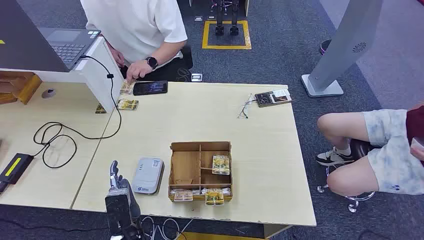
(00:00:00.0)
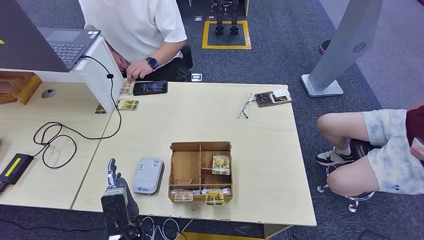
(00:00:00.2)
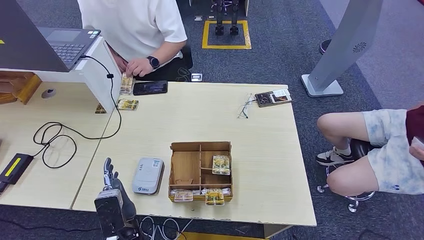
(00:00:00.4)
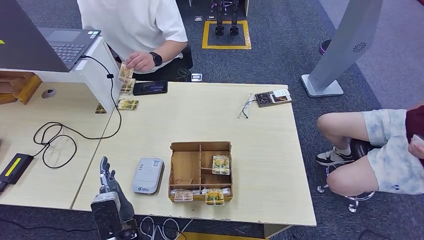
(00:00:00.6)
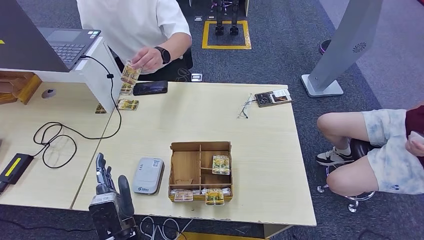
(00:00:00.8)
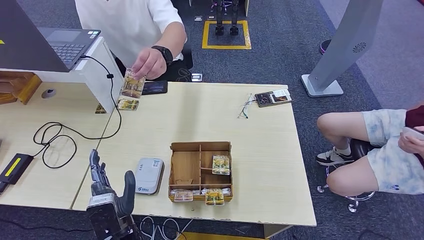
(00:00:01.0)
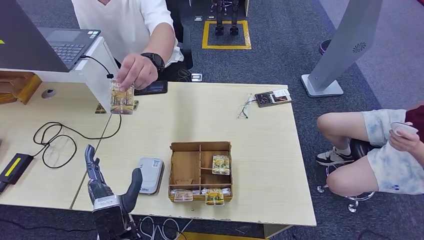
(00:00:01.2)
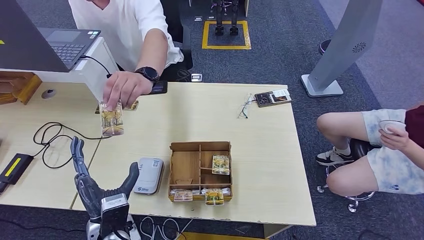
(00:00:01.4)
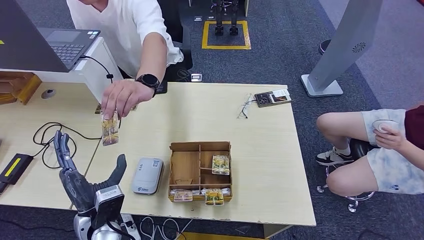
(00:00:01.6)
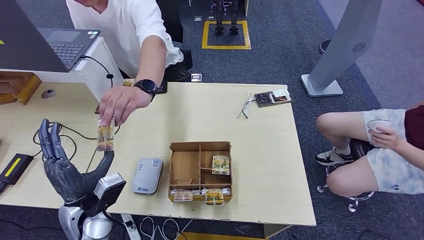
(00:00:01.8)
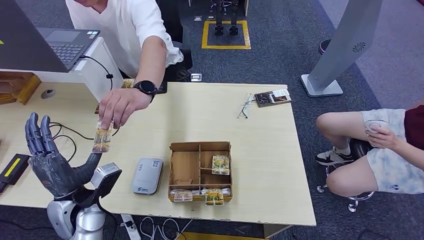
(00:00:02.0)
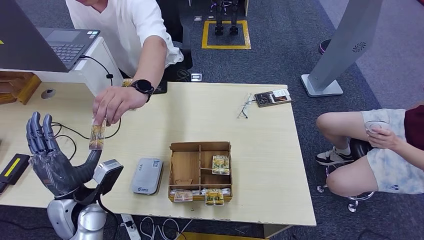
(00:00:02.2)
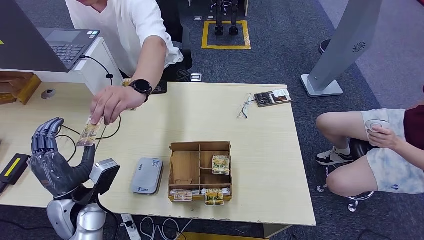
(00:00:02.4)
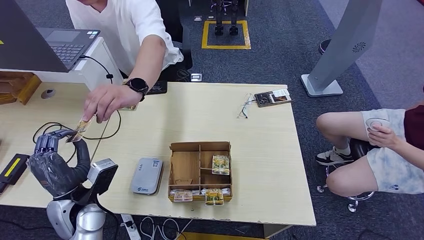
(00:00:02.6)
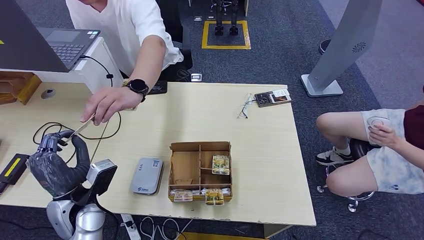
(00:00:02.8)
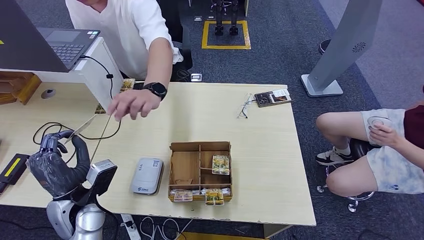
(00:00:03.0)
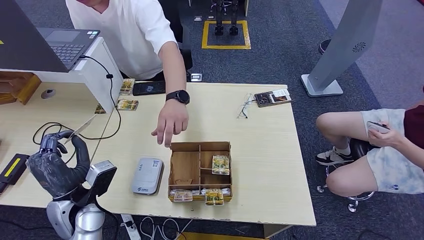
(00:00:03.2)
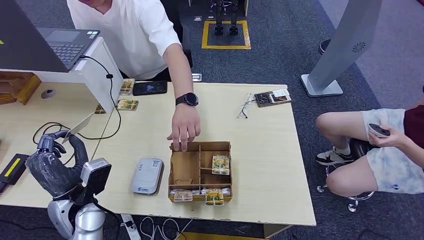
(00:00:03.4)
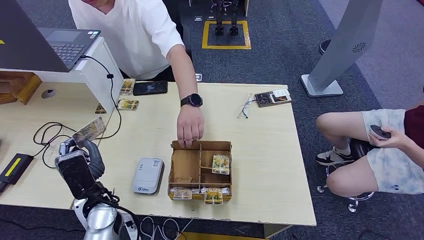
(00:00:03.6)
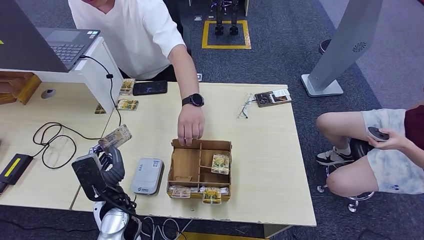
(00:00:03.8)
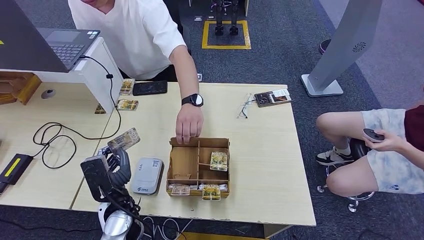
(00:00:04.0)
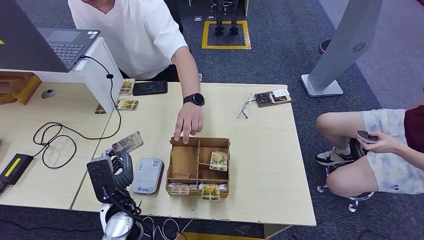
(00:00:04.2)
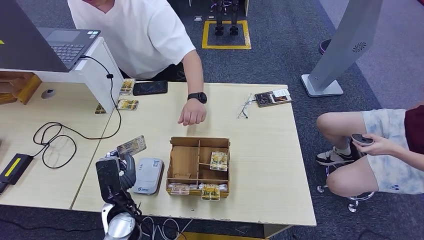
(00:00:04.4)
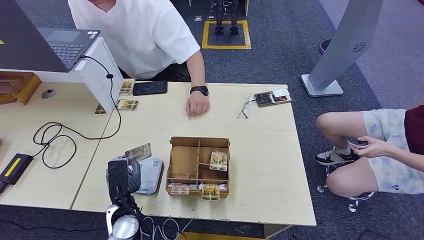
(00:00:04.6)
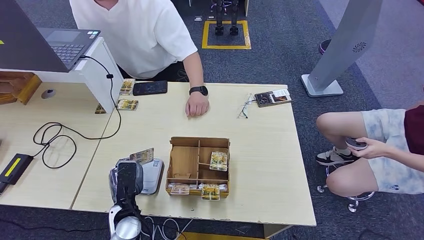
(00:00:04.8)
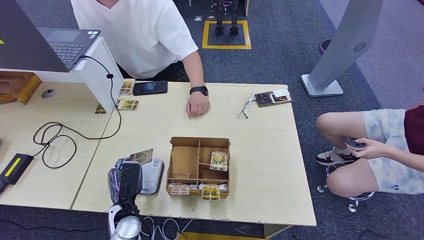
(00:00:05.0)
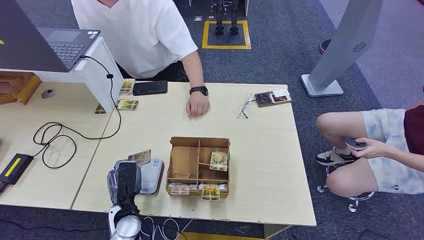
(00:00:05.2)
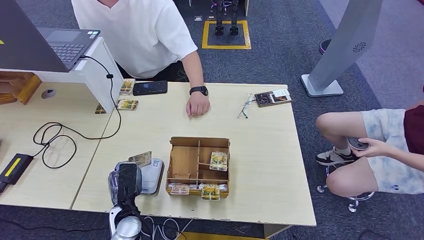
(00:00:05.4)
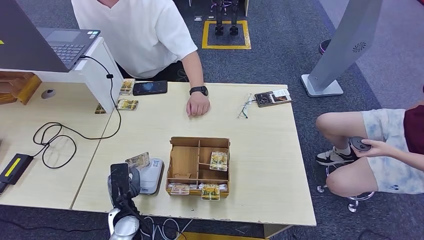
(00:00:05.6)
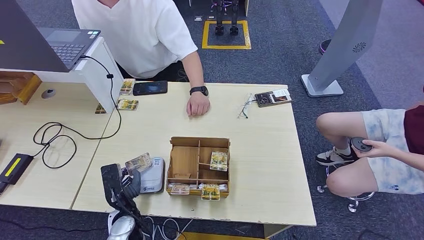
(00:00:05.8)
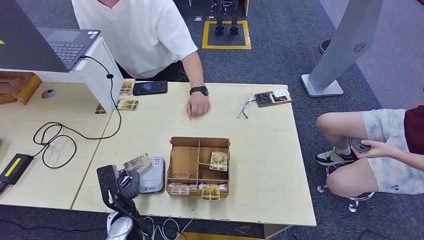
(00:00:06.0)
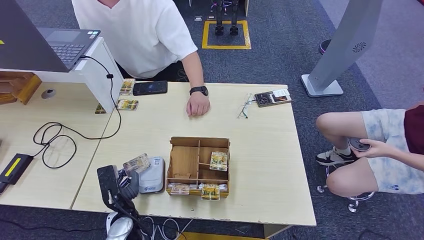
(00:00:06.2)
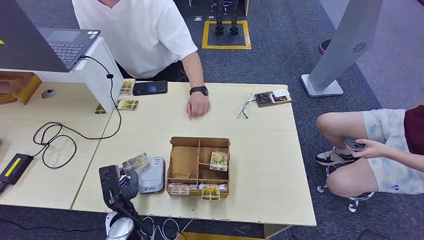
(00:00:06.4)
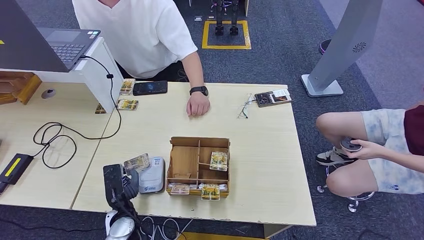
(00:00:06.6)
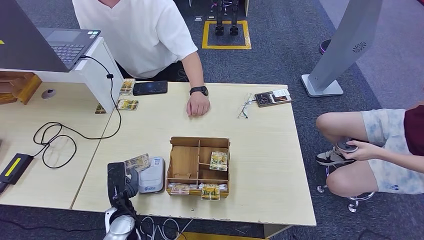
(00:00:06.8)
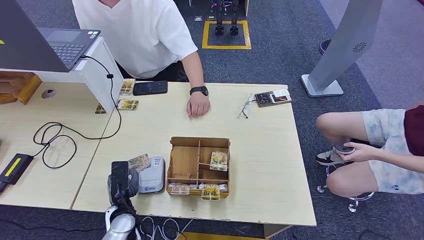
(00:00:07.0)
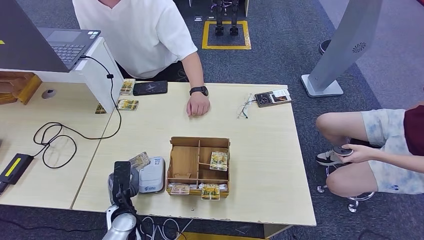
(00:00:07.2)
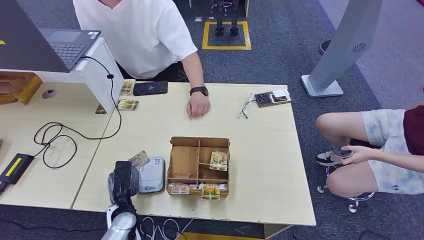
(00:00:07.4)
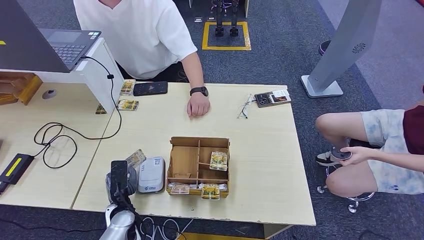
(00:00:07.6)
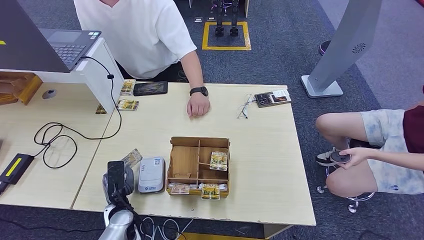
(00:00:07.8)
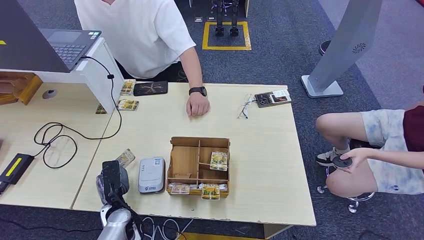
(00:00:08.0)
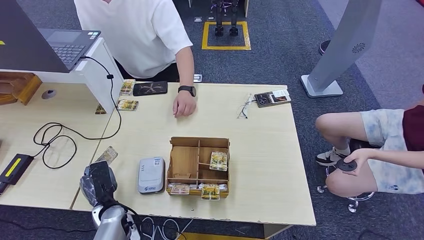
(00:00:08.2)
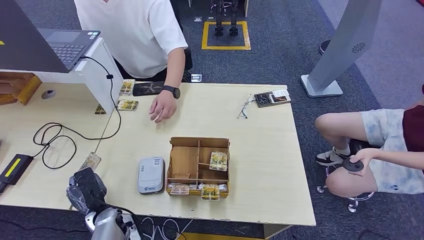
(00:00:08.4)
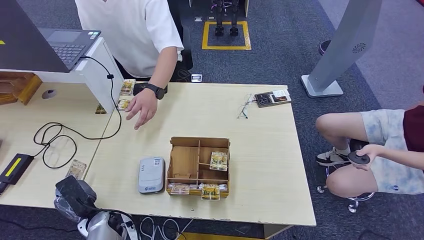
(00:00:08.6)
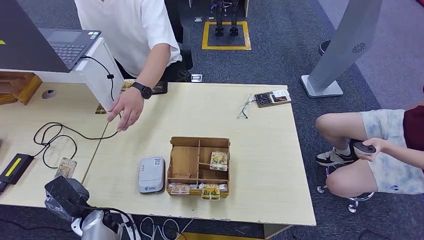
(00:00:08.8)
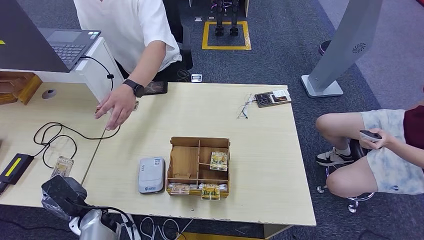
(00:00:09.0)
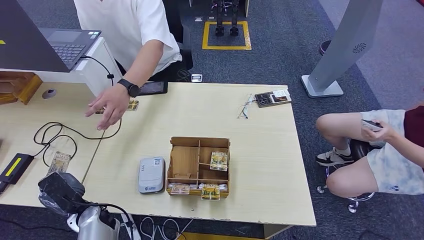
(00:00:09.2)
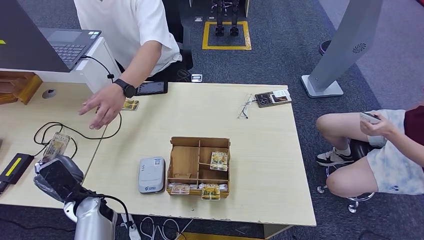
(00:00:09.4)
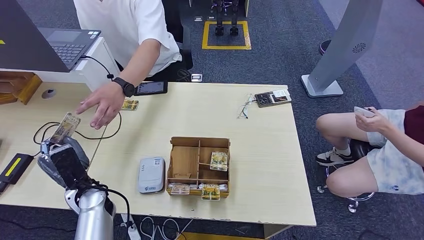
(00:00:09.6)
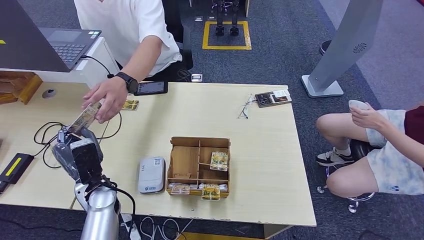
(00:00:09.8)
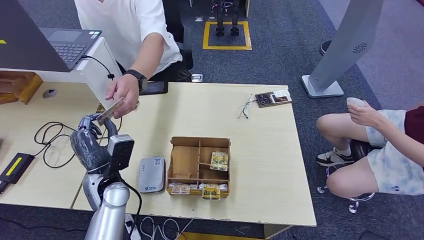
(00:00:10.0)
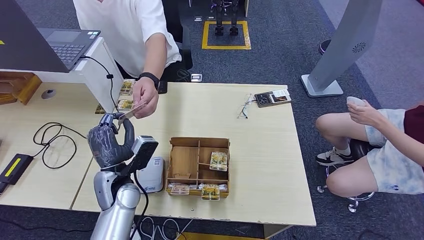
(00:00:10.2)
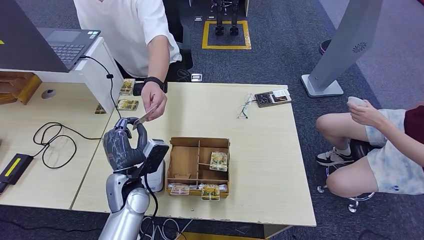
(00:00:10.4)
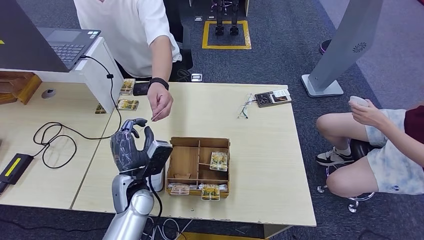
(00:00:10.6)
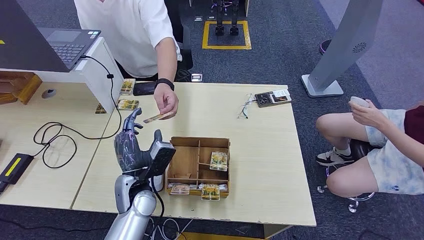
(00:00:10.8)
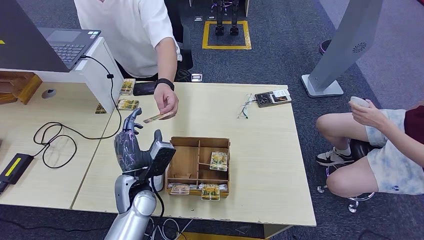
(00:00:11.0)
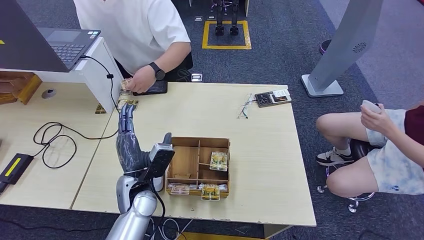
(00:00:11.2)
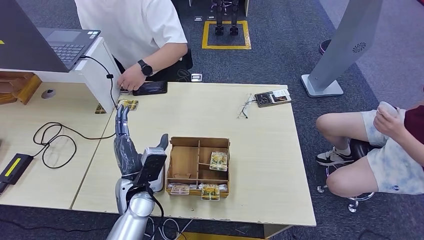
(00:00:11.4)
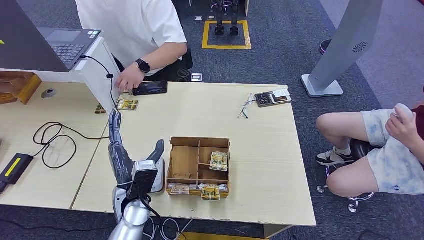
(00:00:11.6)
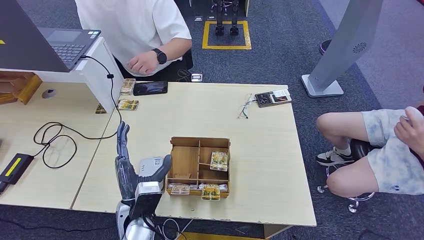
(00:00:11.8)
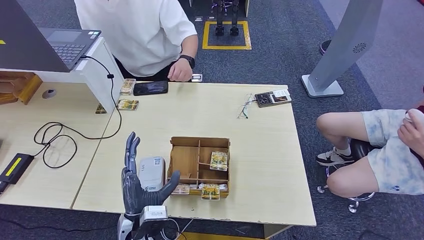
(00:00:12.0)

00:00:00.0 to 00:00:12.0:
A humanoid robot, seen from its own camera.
Step, 00:00:00.0 to 00:00:03.2: Take the ID card from the person's hand.
Step, 00:00:03.4 to 00:00:06.4: Place the ID card on the card reader.
Step, 00:00:06.6 to 00:00:10.0: Hand the ID card to the person.
00:00:01.6 to 00:00:03.0: The left hand shifts approximately 5 cm to the left.
00:00:03.0 to 00:00:04.4: The left hand shifts approximately 10 cm to the right and downward.
00:00:04.4 to 00:00:06.0: The left hand travels downward by about 5 cm.
00:00:07.6 to 00:00:09.0: The left hand is displaced to the left by roughly 5 cm.
00:00:09.0 to 00:00:10.4: The left hand heads upward, to the right and forward, covering some 15 cm.
00:00:10.4 to 00:00:12.0: The left hand is displaced backward by roughly 10 cm.

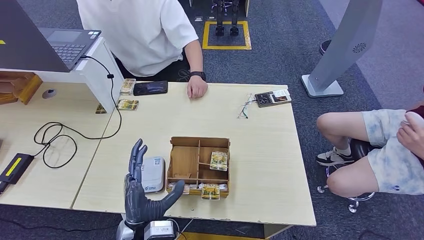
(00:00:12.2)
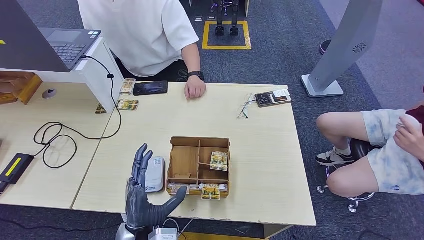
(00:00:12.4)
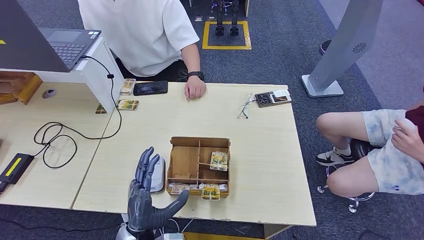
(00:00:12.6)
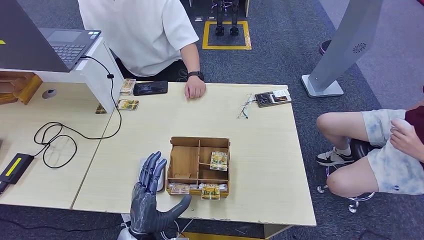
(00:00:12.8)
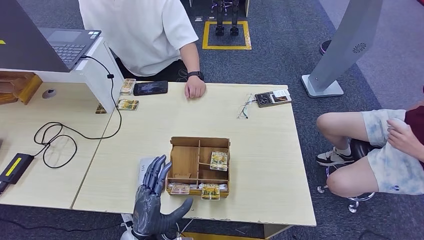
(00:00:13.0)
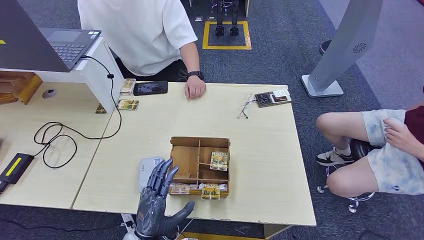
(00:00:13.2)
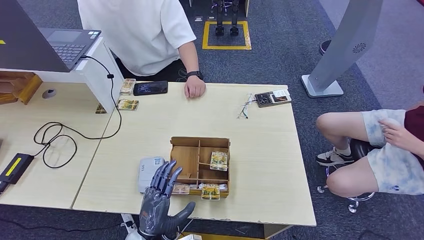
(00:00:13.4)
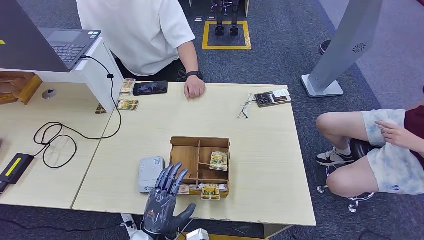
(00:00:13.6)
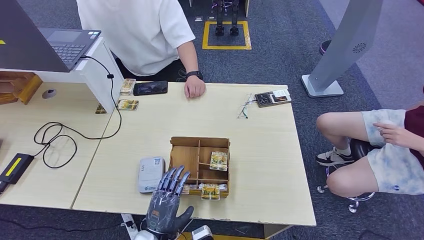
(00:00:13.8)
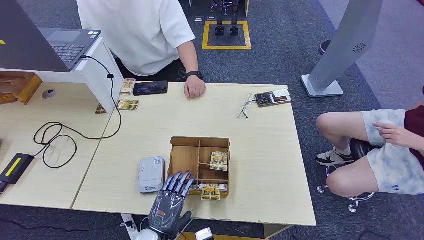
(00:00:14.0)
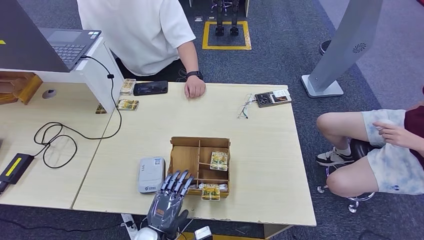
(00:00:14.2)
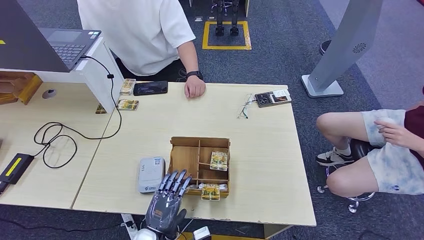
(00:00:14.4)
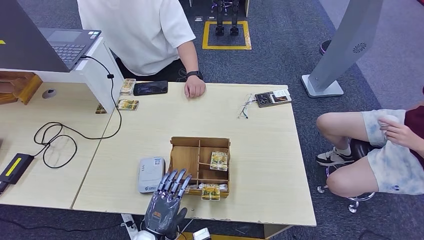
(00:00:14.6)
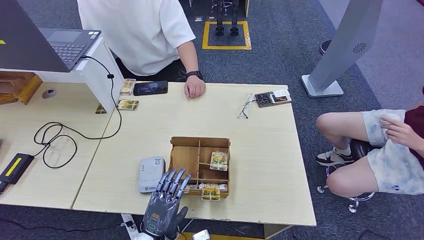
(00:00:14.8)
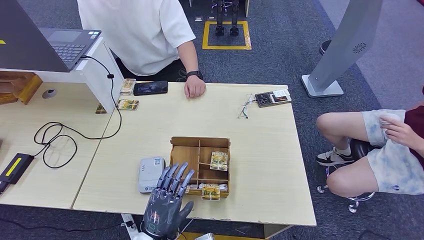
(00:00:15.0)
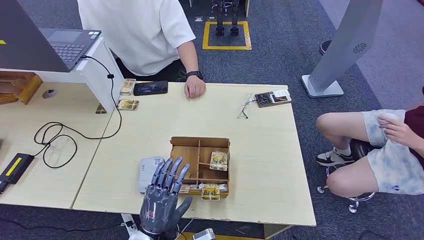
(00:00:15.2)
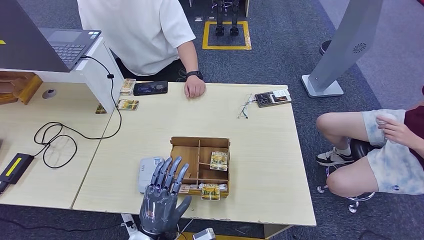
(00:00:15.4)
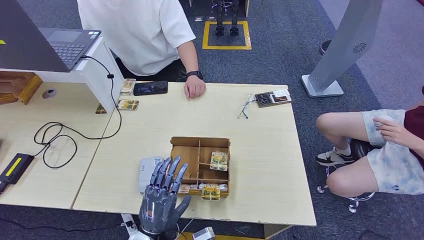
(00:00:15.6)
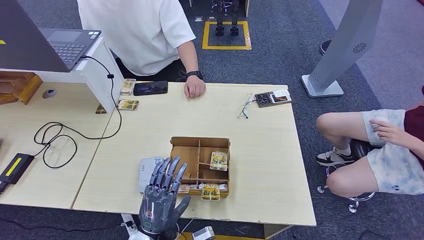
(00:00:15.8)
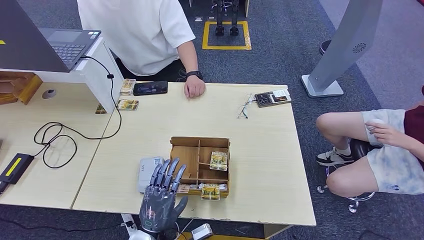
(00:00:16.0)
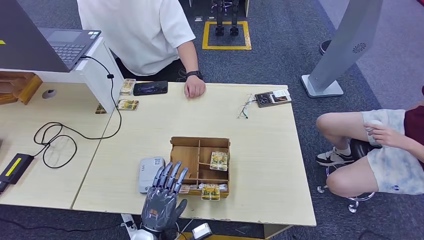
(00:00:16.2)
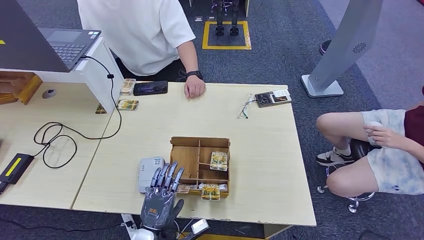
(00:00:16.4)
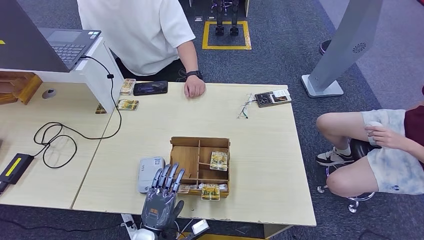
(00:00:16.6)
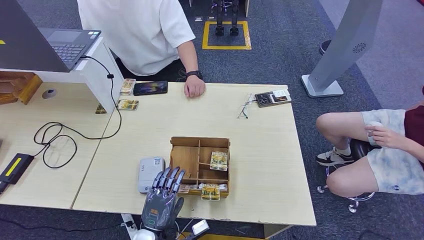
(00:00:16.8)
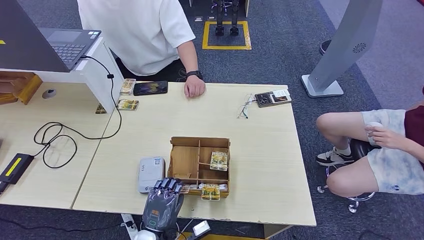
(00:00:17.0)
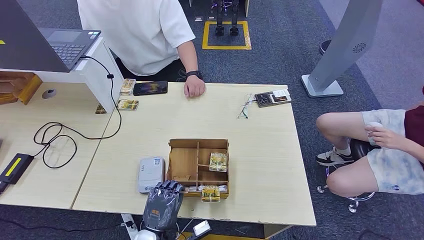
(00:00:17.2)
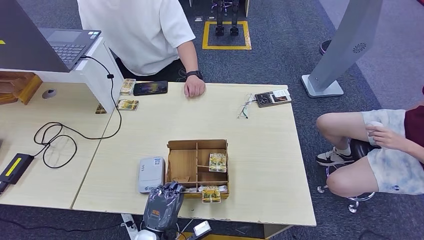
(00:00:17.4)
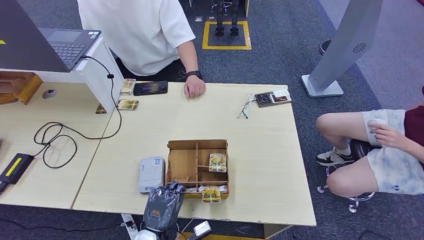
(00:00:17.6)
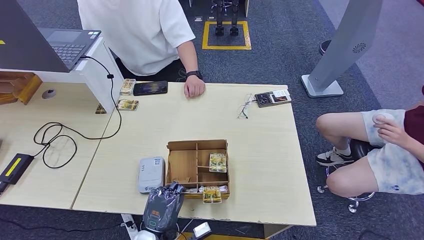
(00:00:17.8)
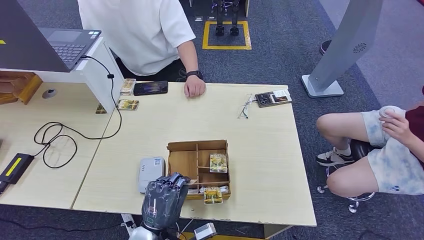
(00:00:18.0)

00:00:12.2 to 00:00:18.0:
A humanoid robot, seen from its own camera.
00:00:12.2 to 00:00:13.6: The left hand moves downward, approximately 5 cm.
00:00:15.0 to 00:00:18.0: The hands move only a little.
